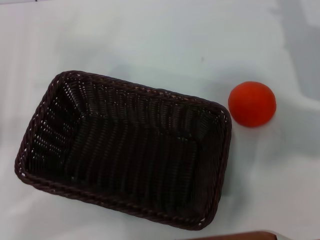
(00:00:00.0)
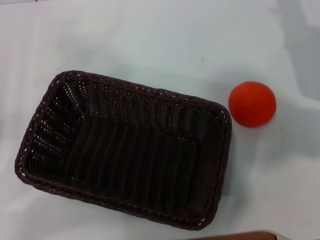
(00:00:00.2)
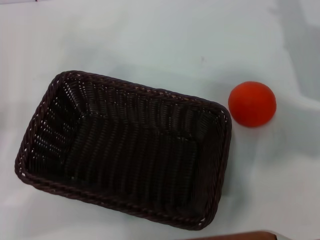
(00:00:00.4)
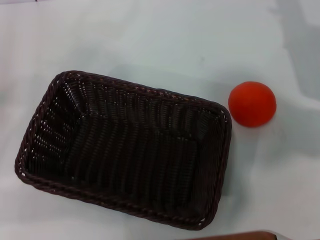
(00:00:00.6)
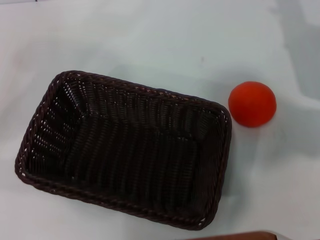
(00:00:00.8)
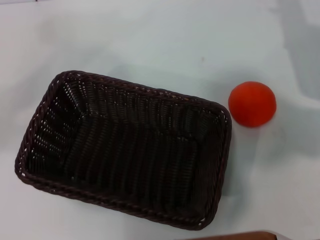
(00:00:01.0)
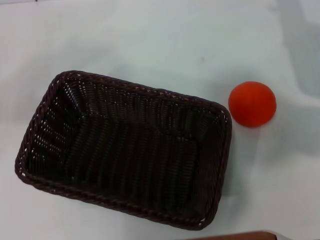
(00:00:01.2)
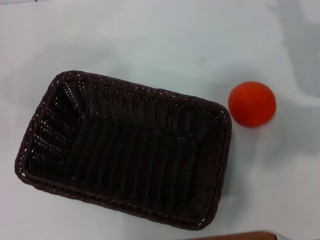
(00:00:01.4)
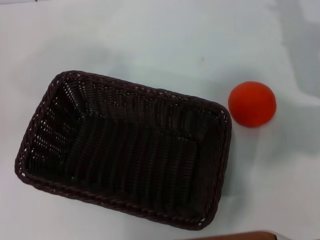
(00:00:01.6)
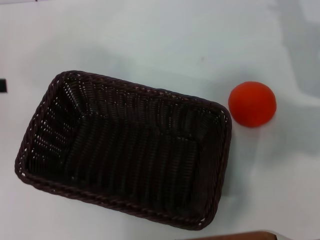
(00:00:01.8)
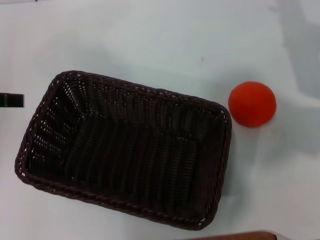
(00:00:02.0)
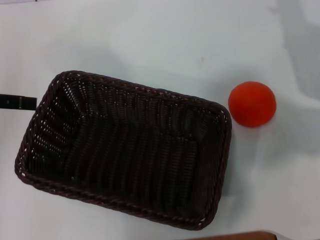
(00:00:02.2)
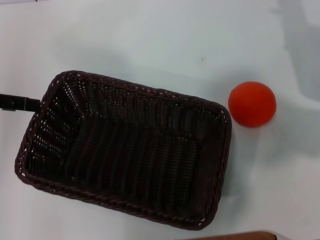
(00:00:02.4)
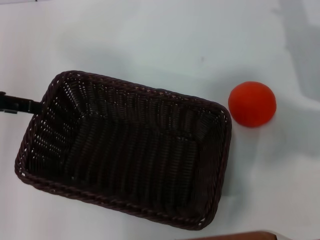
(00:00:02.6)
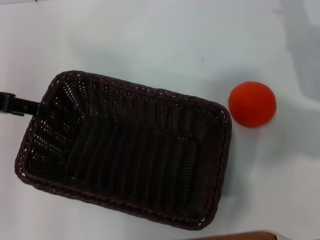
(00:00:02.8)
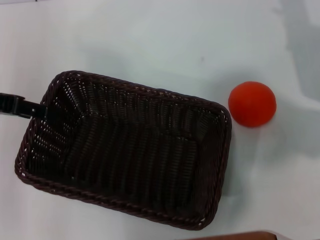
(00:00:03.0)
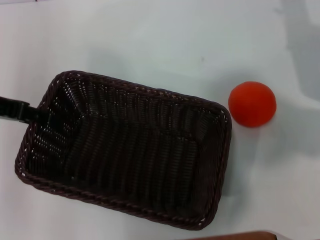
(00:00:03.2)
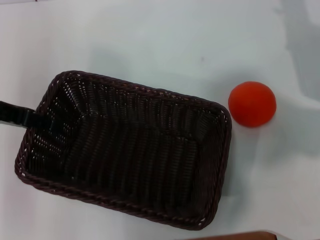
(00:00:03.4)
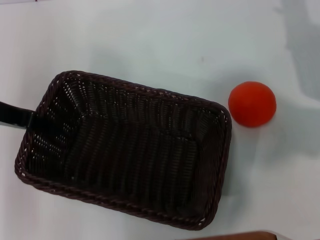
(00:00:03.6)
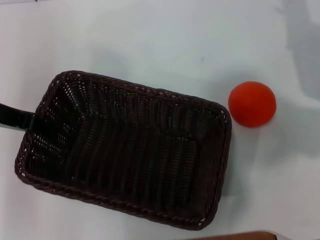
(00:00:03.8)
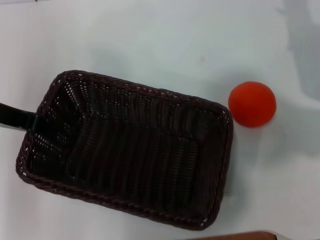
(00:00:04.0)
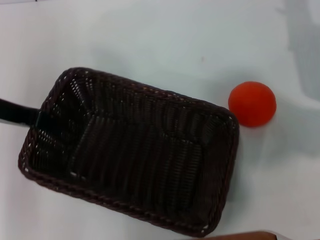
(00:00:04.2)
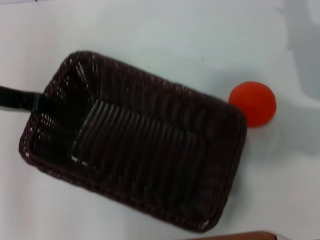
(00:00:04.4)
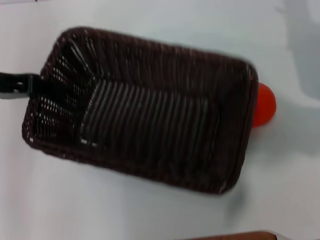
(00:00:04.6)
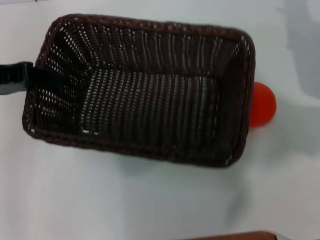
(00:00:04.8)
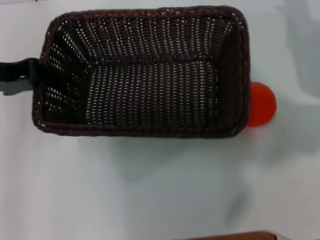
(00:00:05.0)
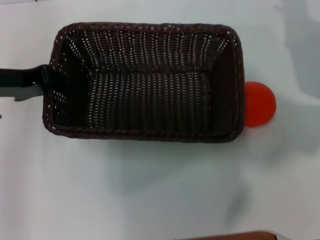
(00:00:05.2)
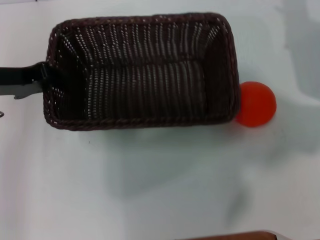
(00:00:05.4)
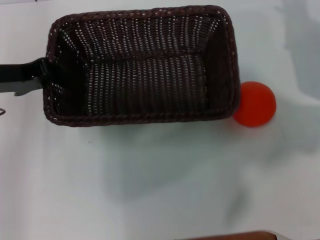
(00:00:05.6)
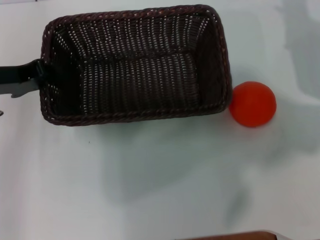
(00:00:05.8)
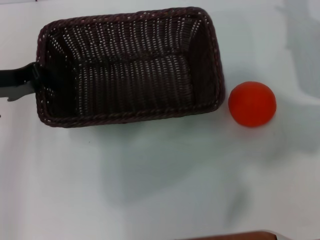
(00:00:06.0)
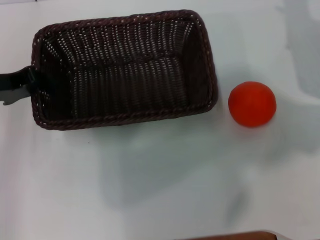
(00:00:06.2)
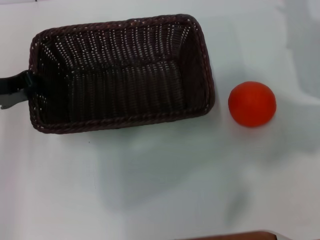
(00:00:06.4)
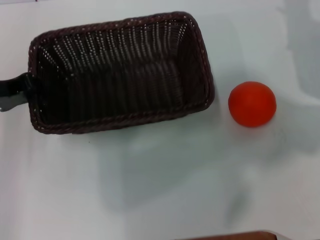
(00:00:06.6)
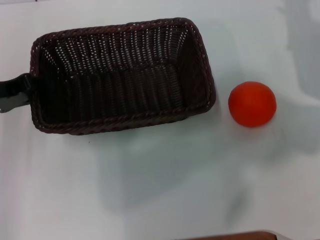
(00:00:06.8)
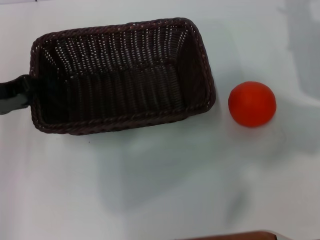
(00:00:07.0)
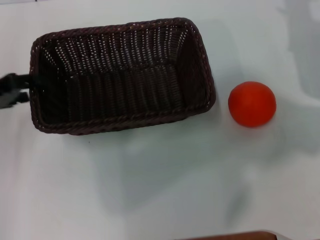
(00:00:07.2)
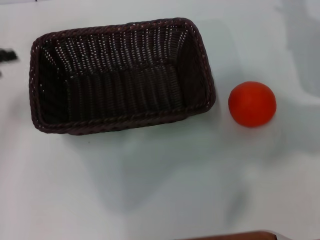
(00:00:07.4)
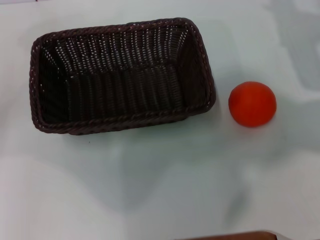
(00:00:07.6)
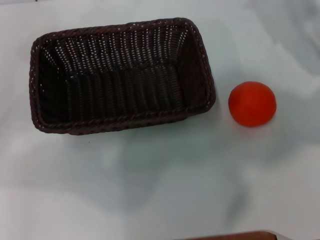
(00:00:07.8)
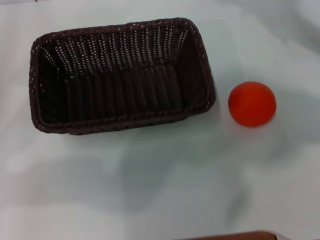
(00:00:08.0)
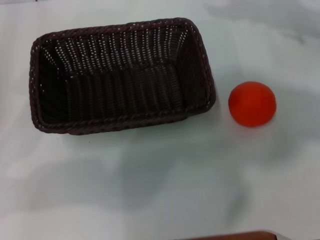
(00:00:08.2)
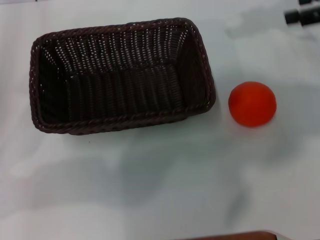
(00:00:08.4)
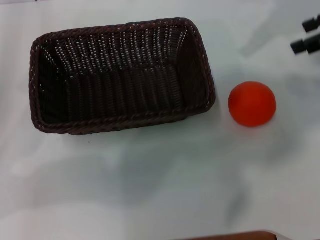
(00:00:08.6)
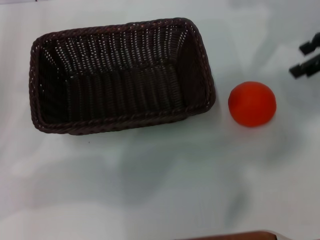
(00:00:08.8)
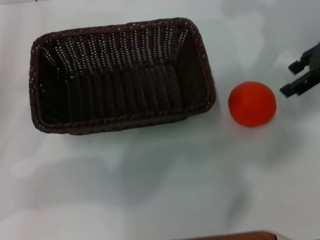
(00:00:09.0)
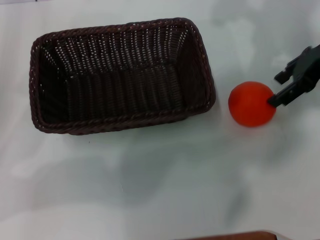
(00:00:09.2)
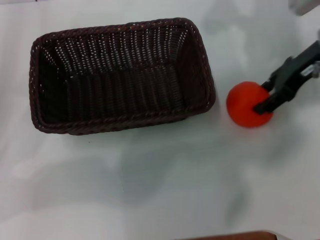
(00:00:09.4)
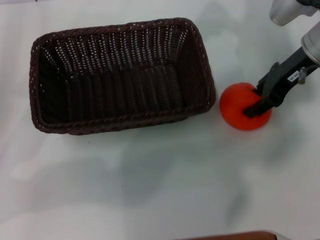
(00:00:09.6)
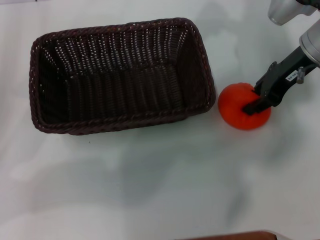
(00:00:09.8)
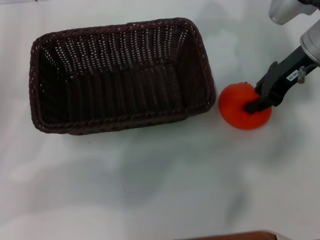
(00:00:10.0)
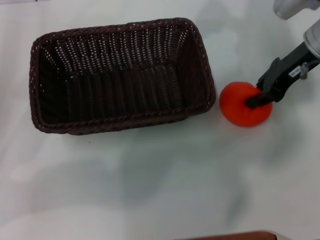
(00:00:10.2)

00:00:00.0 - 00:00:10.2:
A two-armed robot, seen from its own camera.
Task of the whole recording: the left gripper pick up the black basket and place it horizontally in the middle of the table, the right gripper pick up the orange and place it into the black basket.
Step, 00:00:00.0 - 00:00:04.4: Pick up the dark basket with the left gripper.
Step, 00:00:04.6 - 00:00:07.2: Place the dark basket in the center of view with the left gripper.
00:00:00.0 - 00:00:01.4: The left gripper is displaced upward and forward by about 15 cm.
00:00:01.4 - 00:00:03.0: The left gripper goes some 10 cm to the right.
00:00:03.0 - 00:00:04.4: The left gripper closes its fingers.
00:00:05.8 - 00:00:07.2: The left gripper opens up.
00:00:07.2 - 00:00:08.8: The right gripper is displaced upward by about 10 cm; the left gripper moves some 5 cm.
00:00:08.8 - 00:00:10.2: The right gripper shifts some 10 cm to the left and downward, and closes.

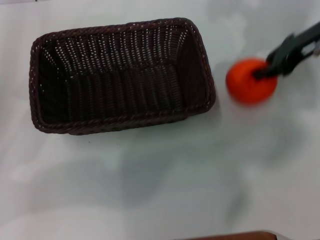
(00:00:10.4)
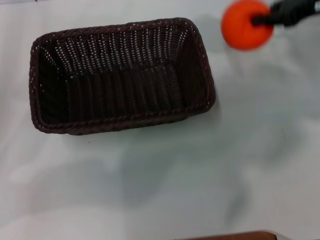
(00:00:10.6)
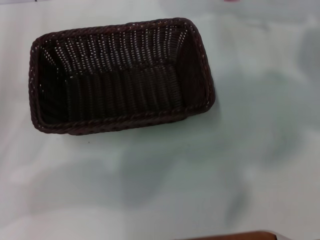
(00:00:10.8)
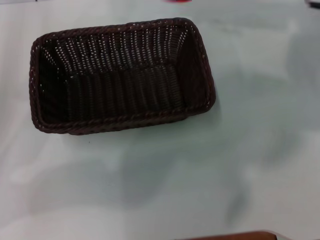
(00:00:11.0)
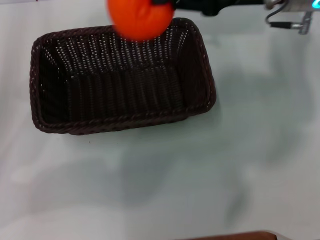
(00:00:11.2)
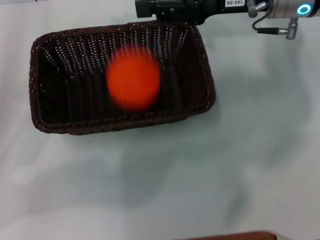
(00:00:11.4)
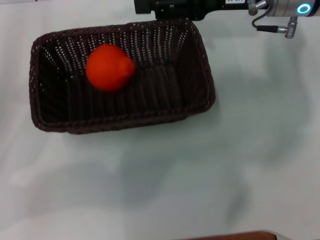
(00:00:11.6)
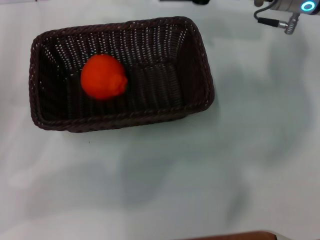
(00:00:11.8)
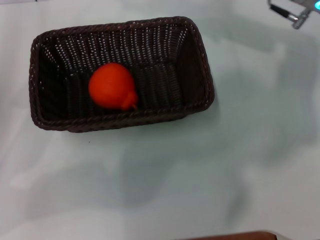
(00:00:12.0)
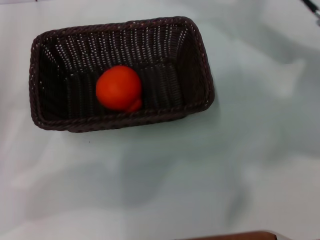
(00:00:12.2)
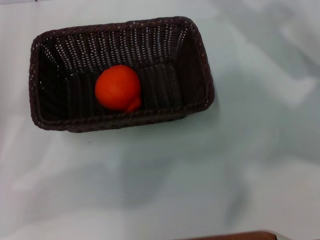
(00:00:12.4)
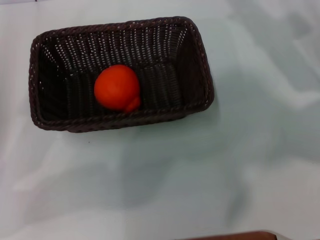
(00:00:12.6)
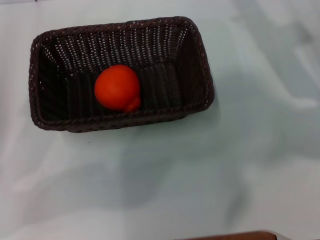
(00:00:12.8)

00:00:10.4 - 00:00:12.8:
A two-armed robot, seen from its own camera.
Task of the whole recording: the left gripper pick up the black basket and place it horizontally in the middle of the table, the right gripper pick up the orange and place it into the black basket.
Step, 00:00:10.6 - 00:00:11.6: Place the orange into the dark basket with the right gripper.
00:00:10.4 - 00:00:11.6: The right gripper travels to the left by roughly 10 cm.
00:00:11.6 - 00:00:12.8: The right gripper shifts some 10 cm to the right and downward, and opens up.
